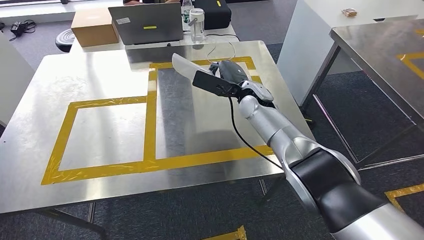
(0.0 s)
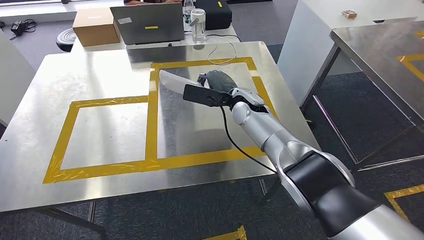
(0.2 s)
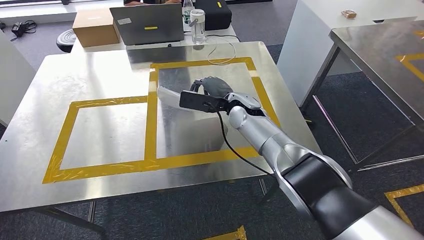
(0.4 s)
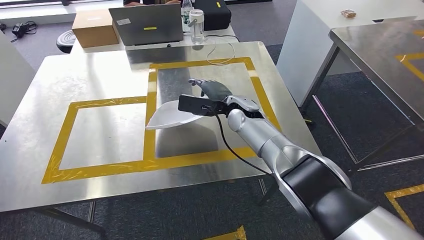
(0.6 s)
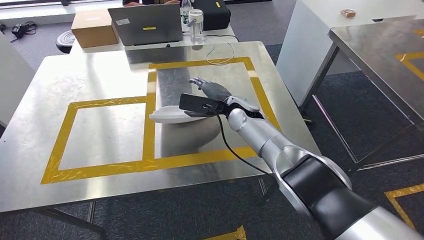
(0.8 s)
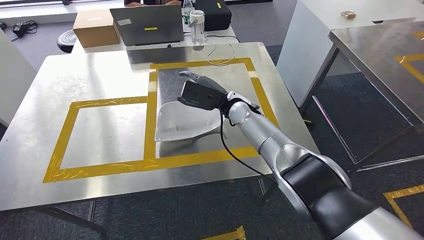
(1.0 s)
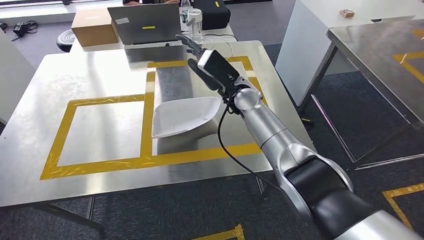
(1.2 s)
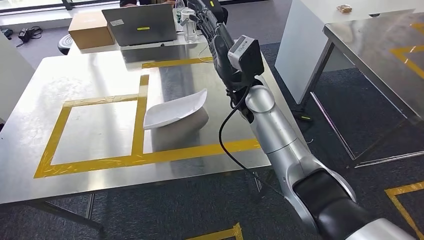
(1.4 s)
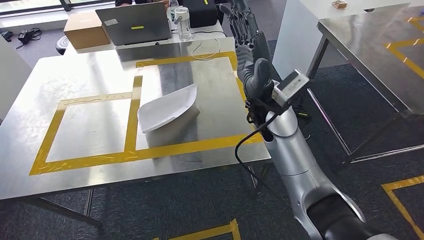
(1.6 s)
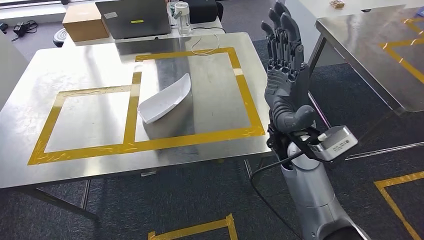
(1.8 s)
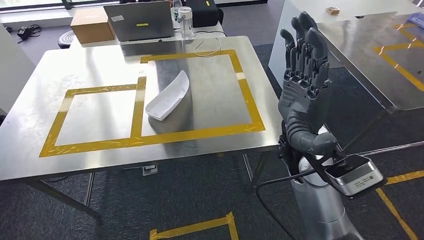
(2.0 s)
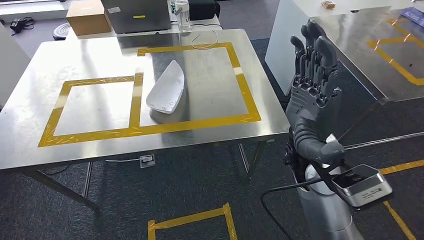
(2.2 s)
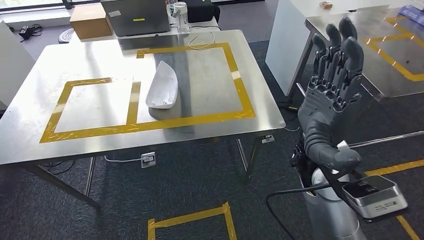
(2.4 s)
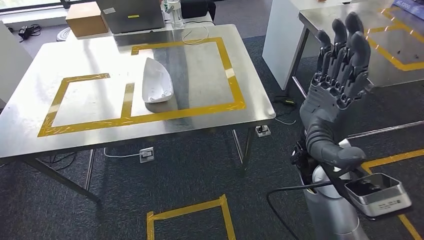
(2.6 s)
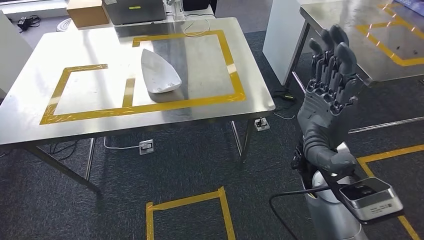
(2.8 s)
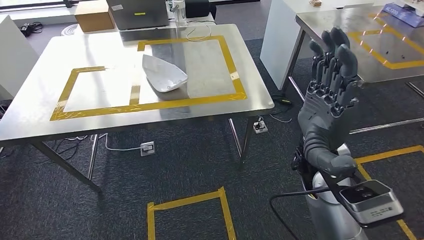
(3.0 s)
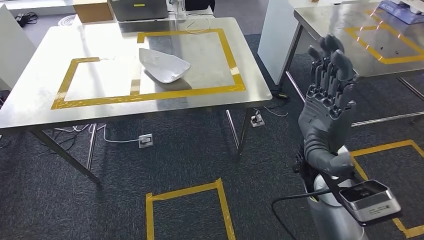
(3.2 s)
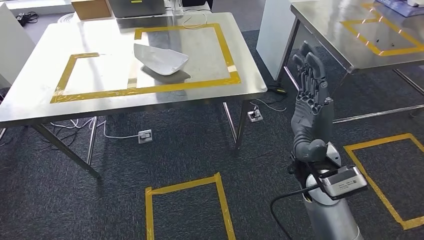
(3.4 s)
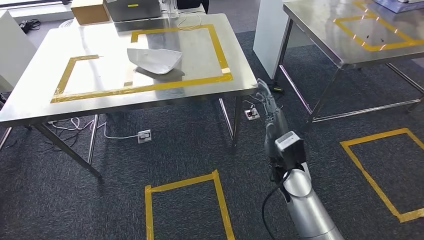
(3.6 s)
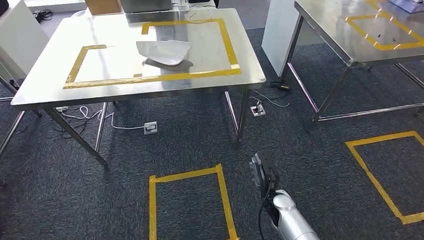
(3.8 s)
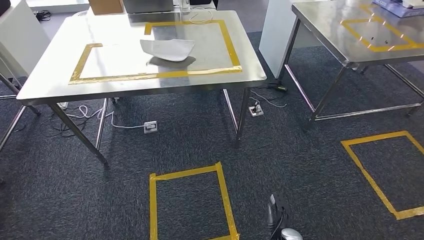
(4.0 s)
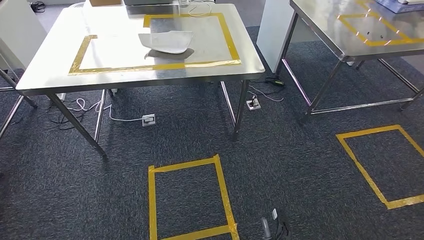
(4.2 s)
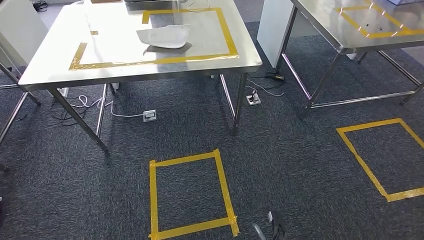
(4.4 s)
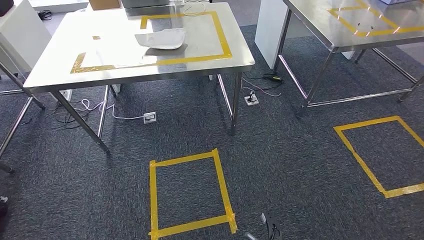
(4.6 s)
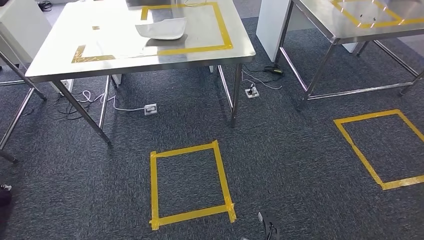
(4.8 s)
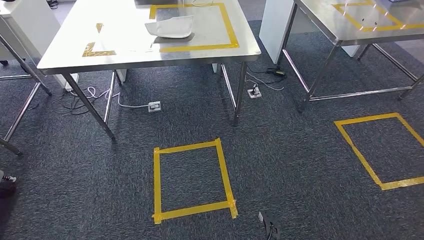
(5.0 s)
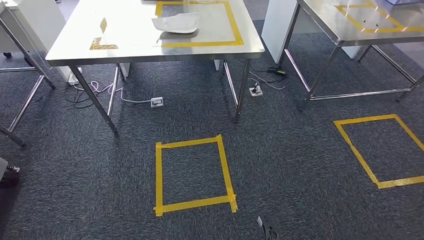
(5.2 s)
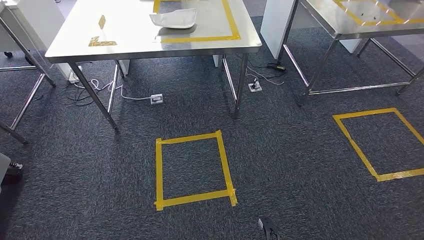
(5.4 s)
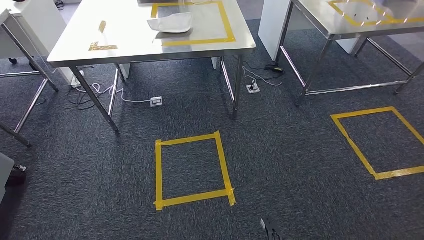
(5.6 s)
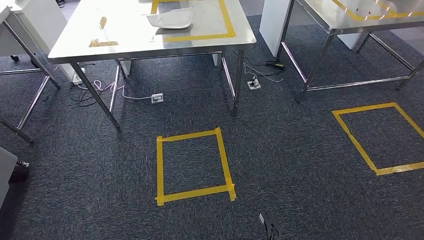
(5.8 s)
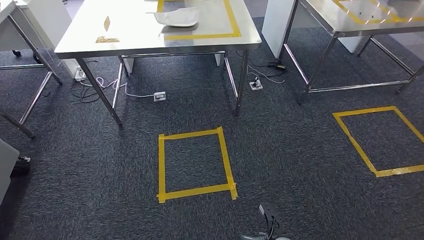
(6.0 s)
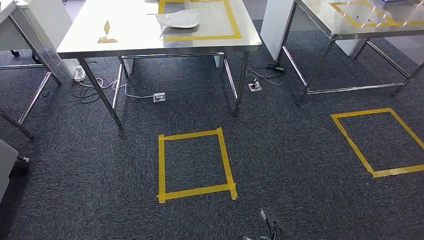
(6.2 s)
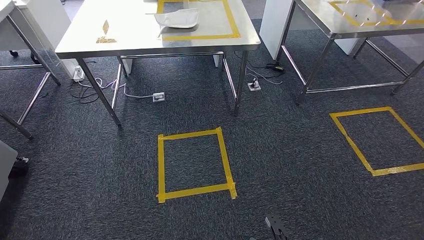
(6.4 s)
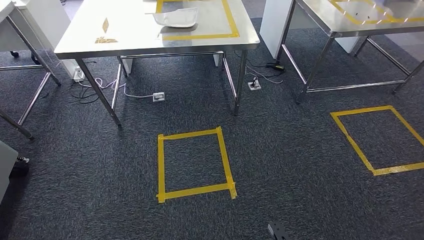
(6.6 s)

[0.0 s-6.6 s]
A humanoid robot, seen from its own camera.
Step, 0.0 to 1.8 s: Insert the small component into the corresponding slot on the workbench.
Step, 2.0 to 6.6 s: Return to the initial position at the workbench.
